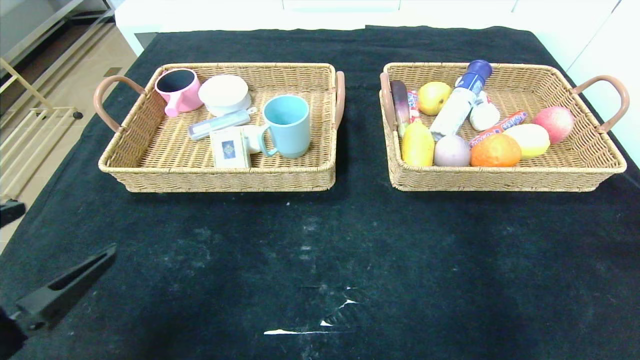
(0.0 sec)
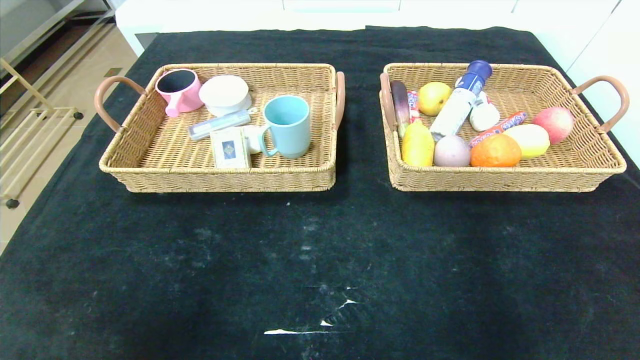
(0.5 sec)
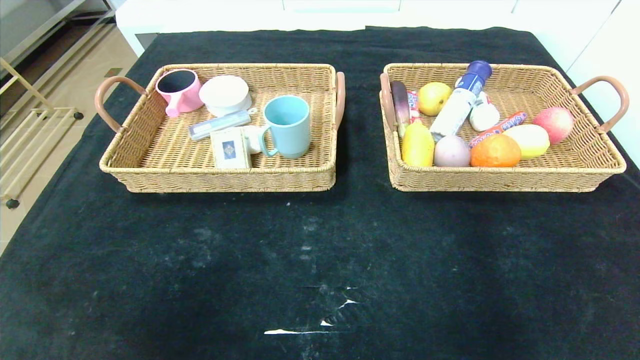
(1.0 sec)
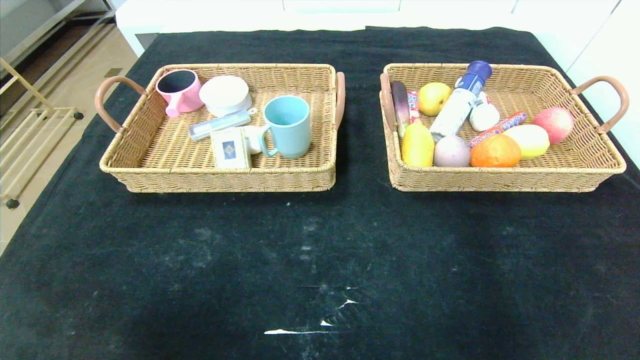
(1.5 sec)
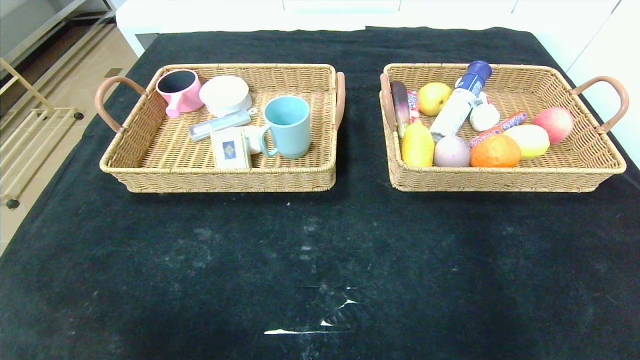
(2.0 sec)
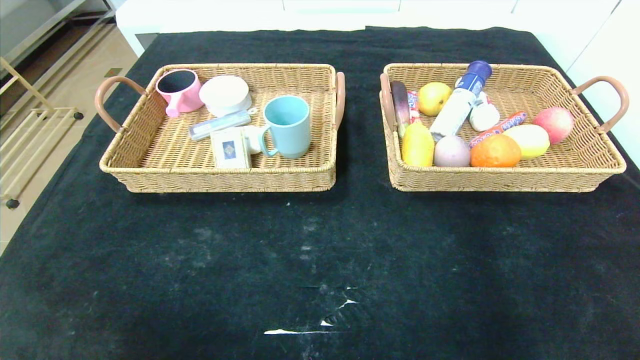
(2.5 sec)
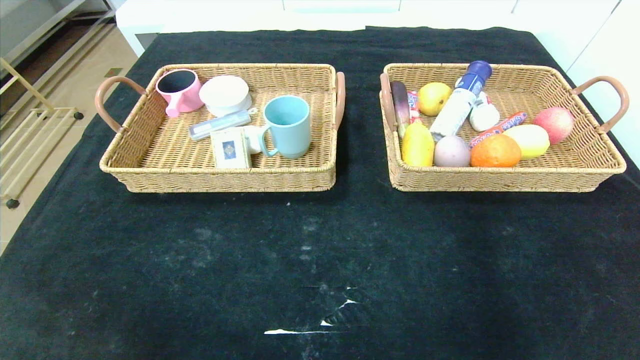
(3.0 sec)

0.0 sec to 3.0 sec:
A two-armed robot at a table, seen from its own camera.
0.0 sec to 1.5 sec: The left gripper is displaced backward by roughly 10 cm; the right gripper heads backward and downward, covering roughly 15 cm.
